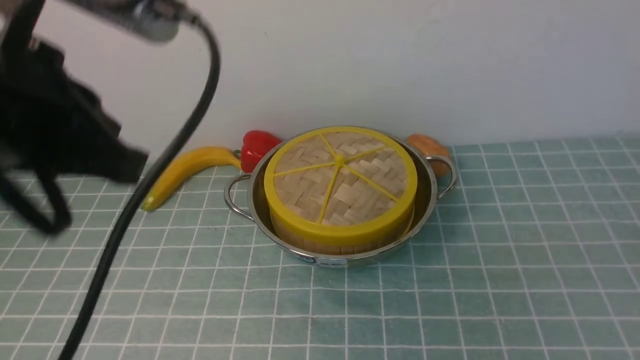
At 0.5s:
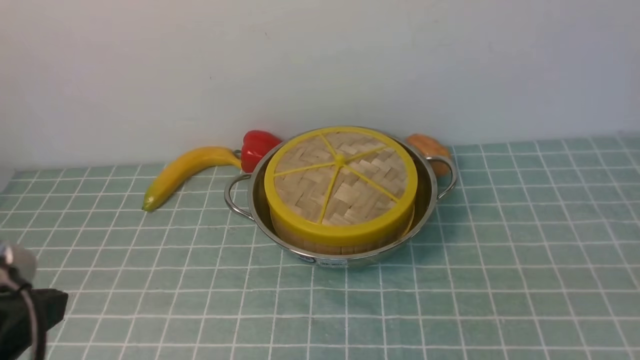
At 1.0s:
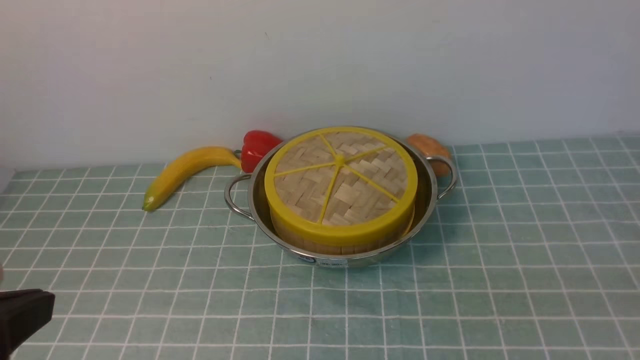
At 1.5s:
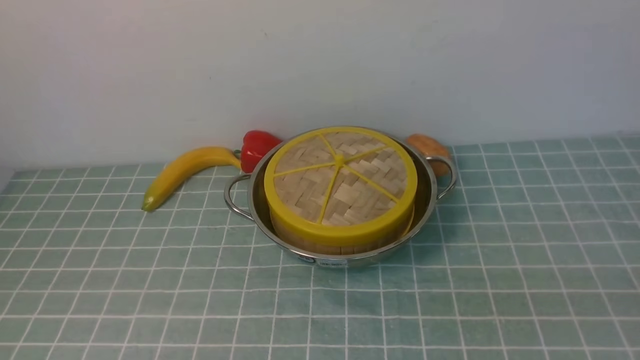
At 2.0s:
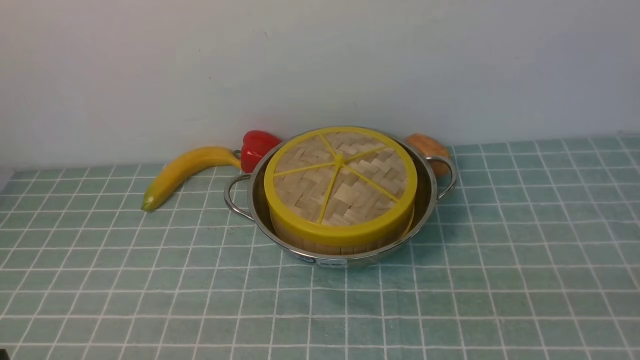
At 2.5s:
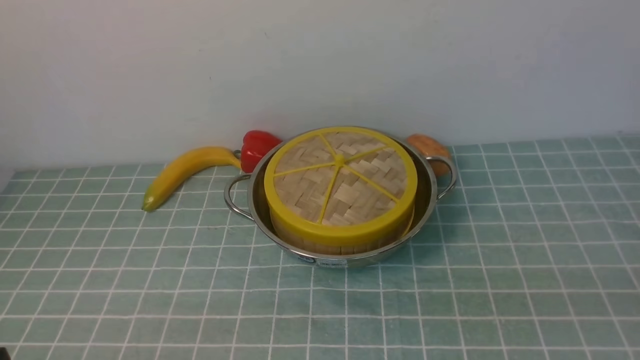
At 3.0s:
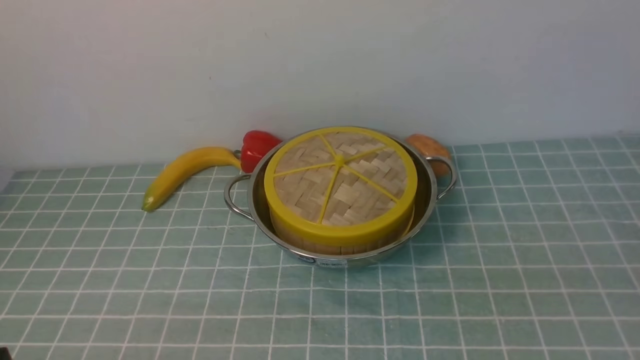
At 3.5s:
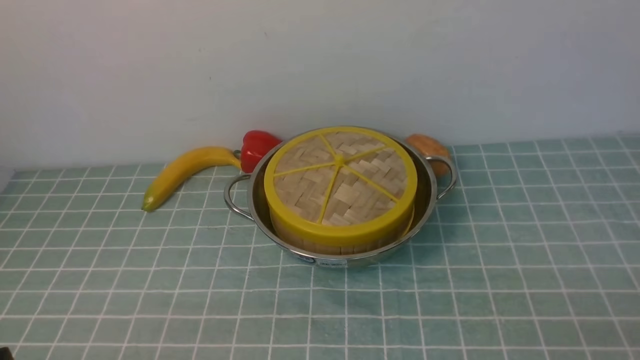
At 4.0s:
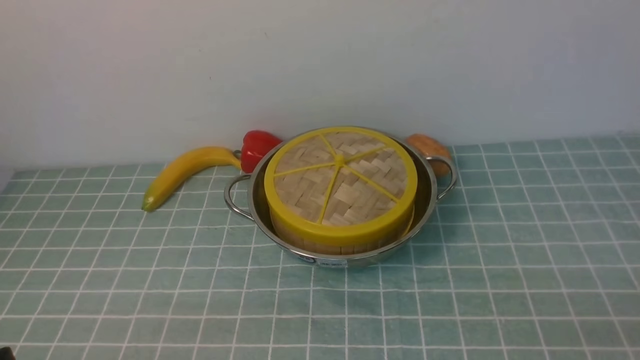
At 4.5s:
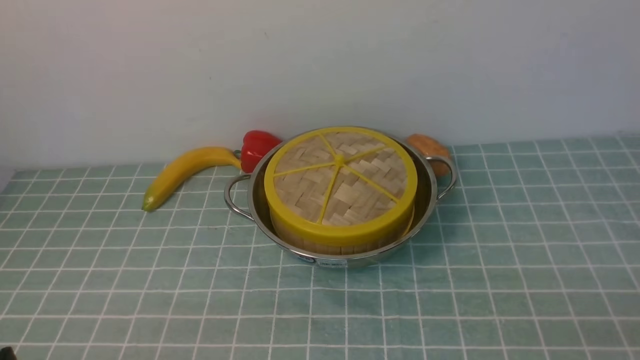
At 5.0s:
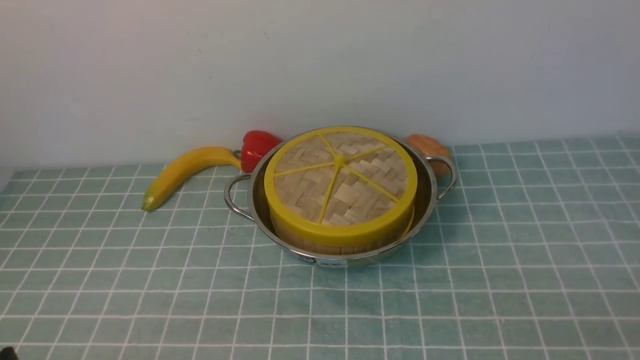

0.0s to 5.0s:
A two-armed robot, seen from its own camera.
Task of the whole recording: place the steamer in the pot on the blue tablecloth, and put the lid on the steamer.
0.0s to 2.5s: The left gripper goes approximately 25 cm downward and backward.
